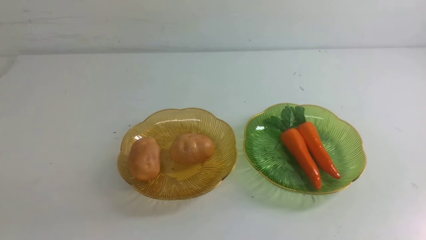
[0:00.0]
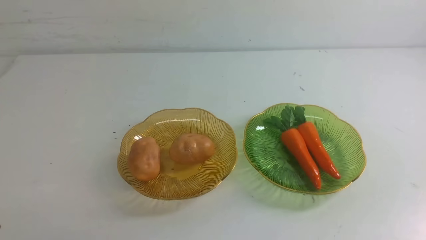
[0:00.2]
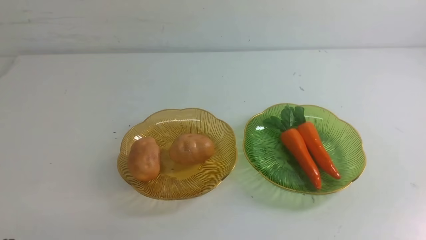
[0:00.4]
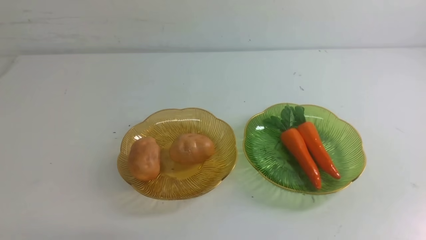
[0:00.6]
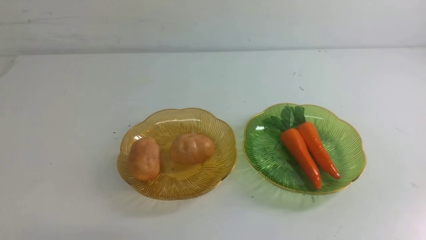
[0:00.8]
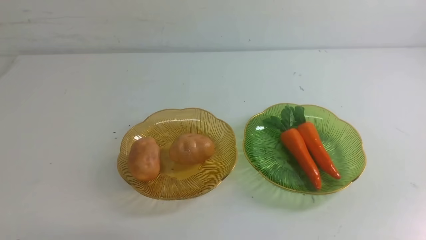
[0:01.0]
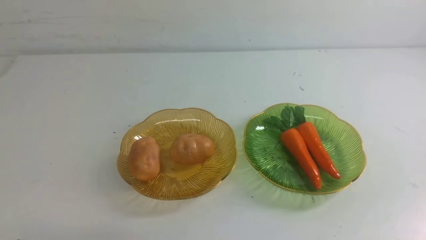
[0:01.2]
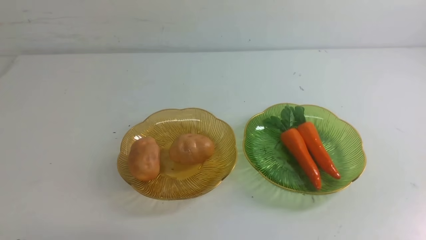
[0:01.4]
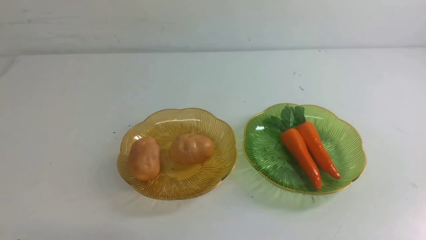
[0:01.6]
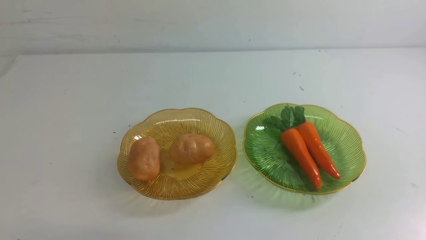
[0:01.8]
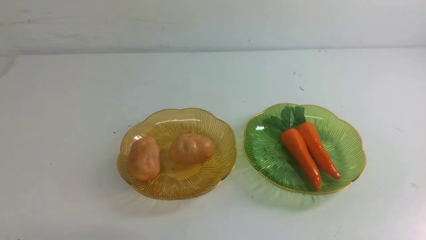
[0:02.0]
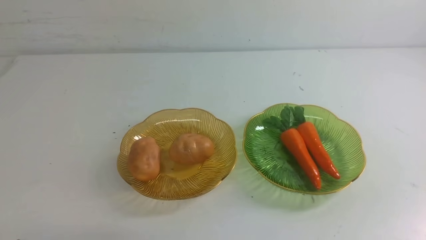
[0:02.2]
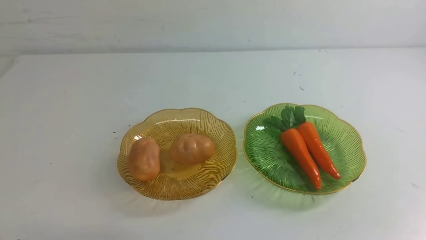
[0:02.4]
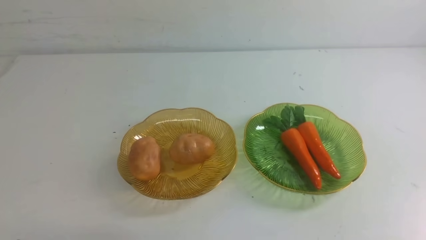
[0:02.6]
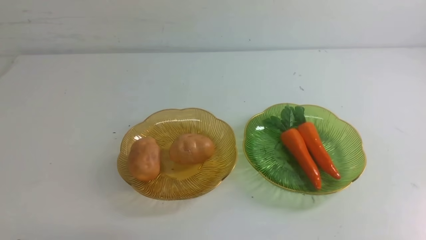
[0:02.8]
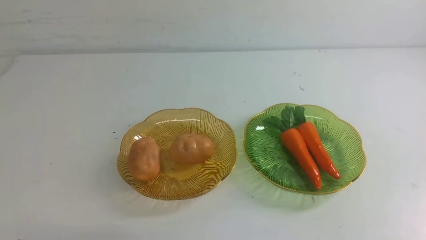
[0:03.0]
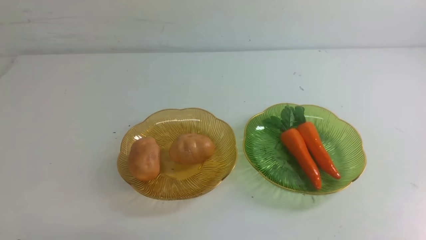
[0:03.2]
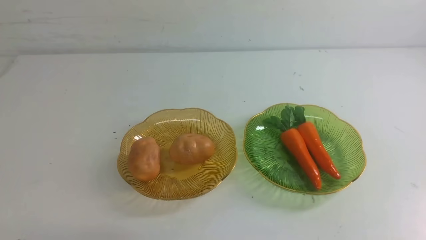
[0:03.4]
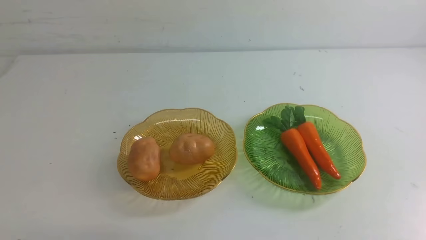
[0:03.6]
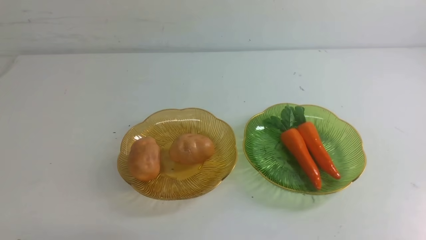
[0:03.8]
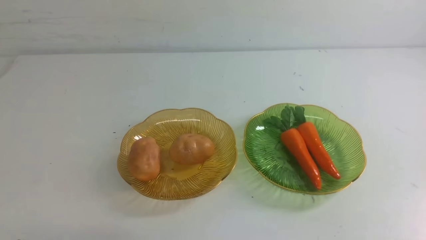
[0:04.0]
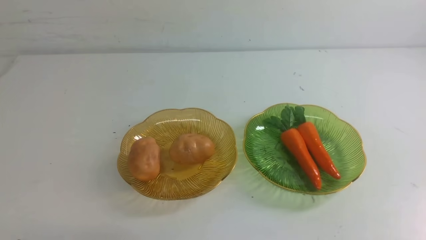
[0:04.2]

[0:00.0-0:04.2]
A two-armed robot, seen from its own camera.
0:02.8 to 0:04.2: Both grippers stay about where they are.
